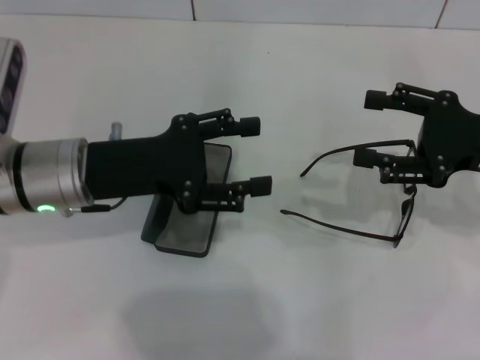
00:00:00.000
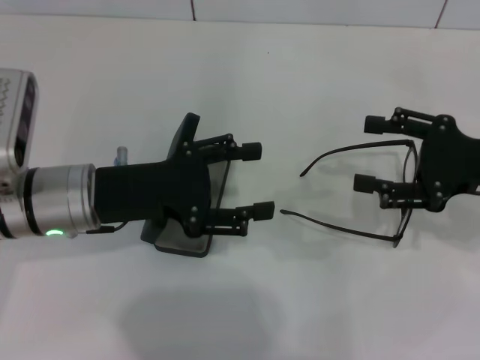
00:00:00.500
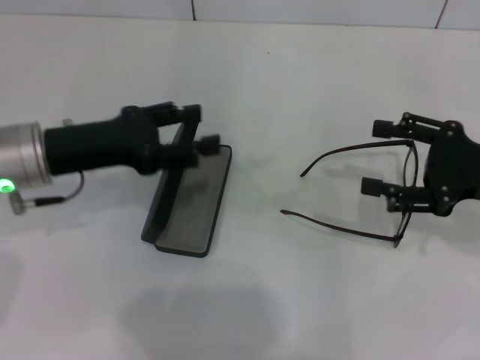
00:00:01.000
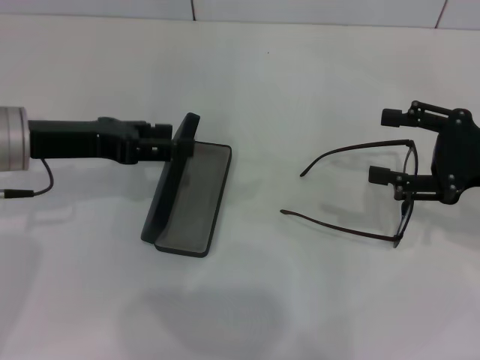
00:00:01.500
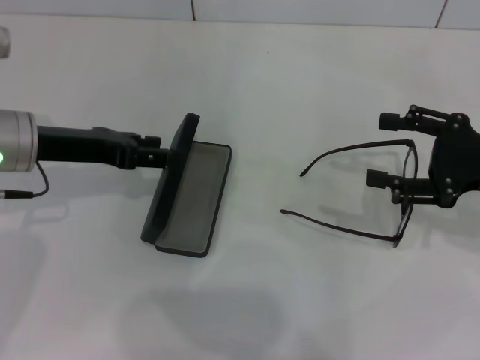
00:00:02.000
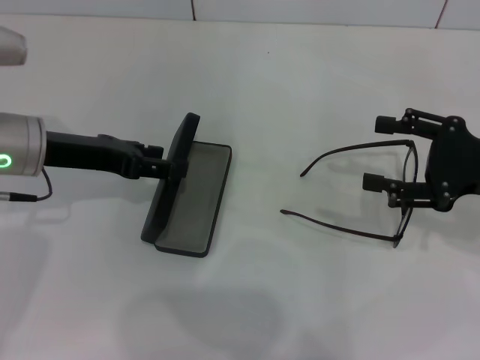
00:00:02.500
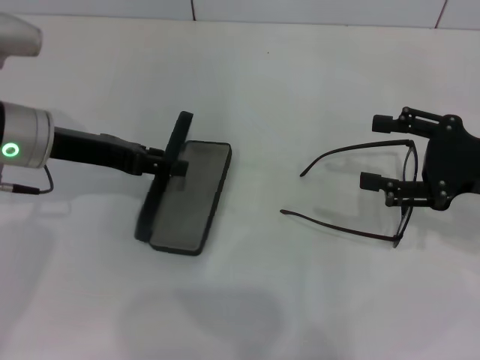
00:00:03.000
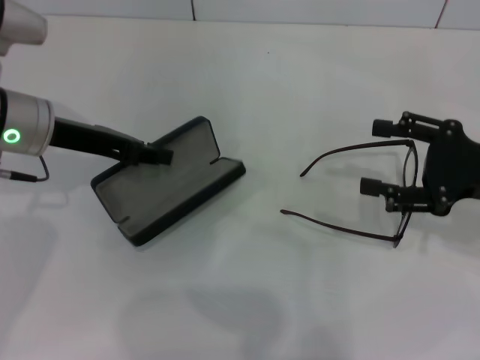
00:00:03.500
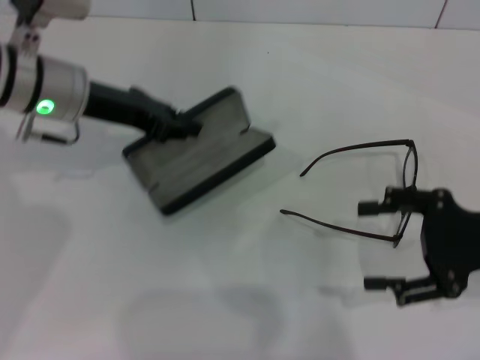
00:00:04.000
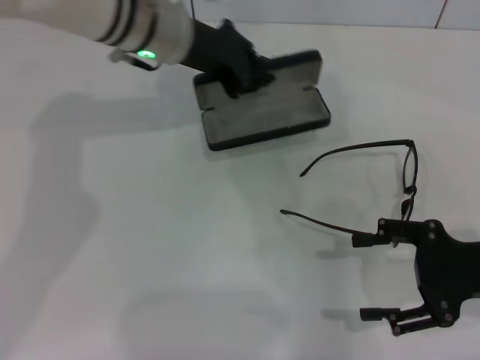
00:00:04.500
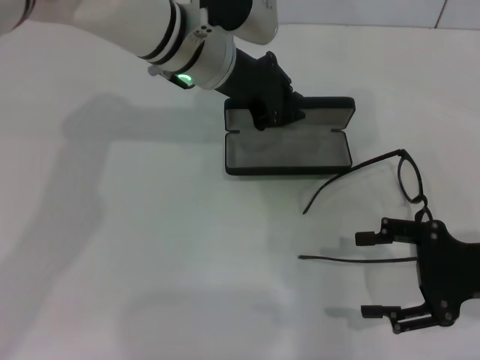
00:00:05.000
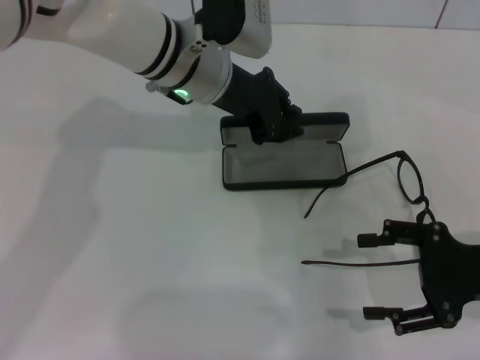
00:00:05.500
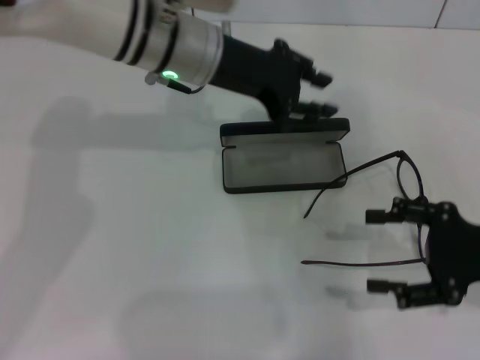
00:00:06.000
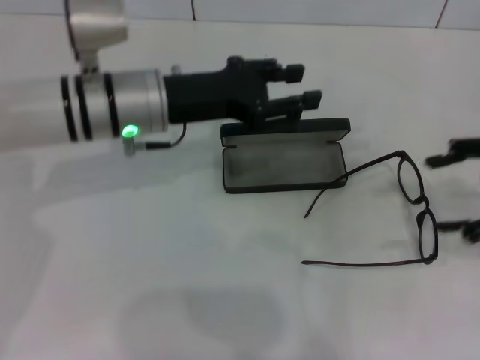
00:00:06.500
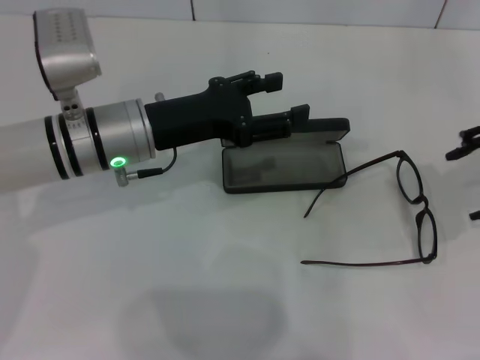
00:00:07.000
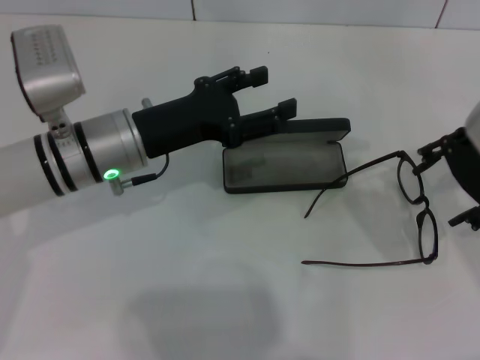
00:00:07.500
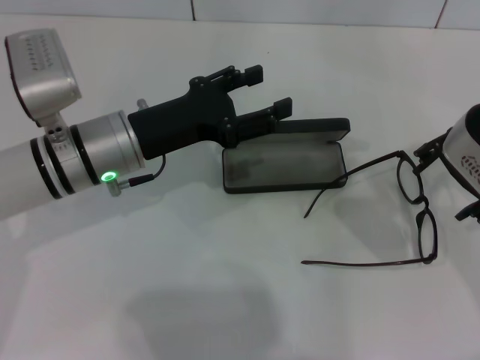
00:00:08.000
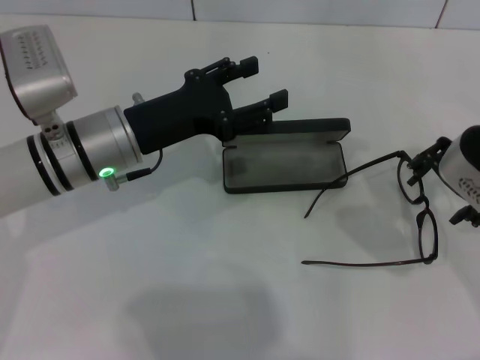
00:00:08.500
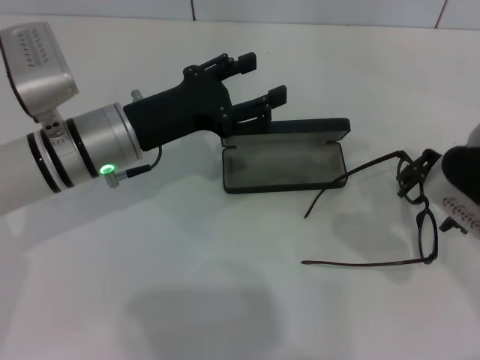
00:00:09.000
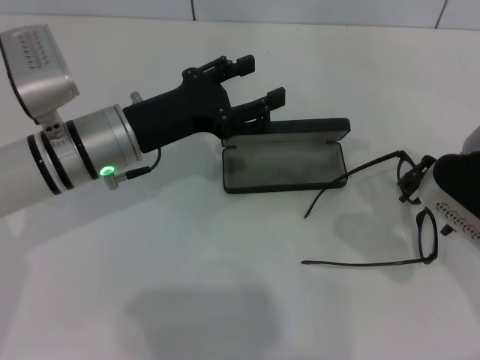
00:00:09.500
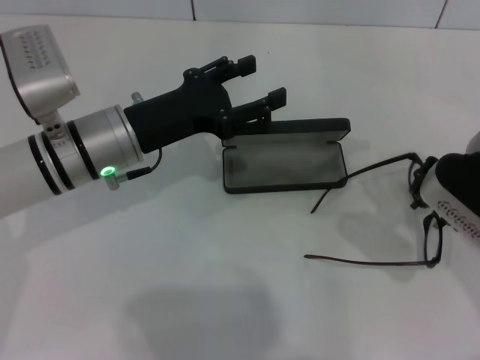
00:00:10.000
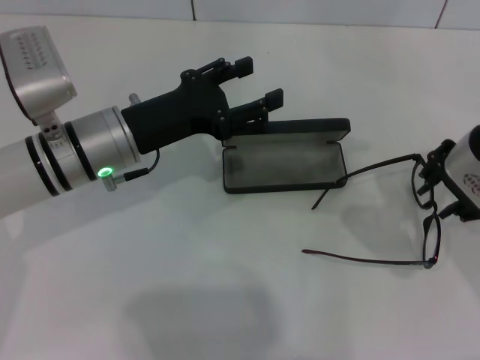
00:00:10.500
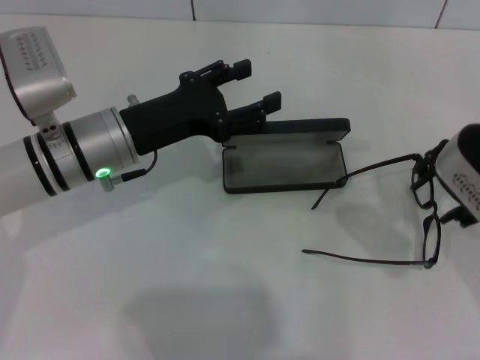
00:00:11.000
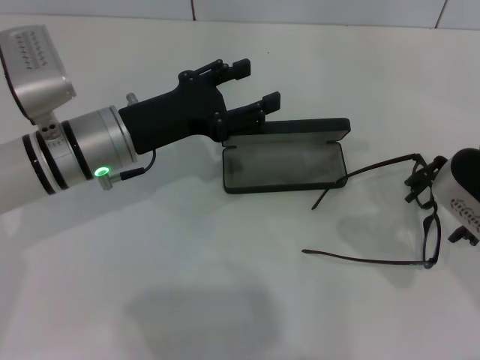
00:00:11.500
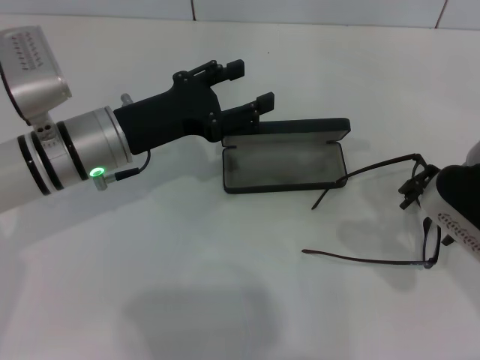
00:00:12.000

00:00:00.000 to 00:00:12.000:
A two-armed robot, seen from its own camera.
Step, 00:00:00.000 to 00:00:03.000: Grab the glasses case with your left hand.
Step, 00:00:04.000 to 00:00:05.500: Place the glasses case in the center of the table with your left hand.
00:00:00.000 to 00:00:02.000: The left gripper travels to the left by some 5 cm.
00:00:02.000 to 00:00:04.000: The left gripper is displaced forward by some 5 cm, and closes up.
00:00:04.000 to 00:00:06.000: The left gripper travels to the right by some 10 cm, and opens up.
00:00:06.000 to 00:00:08.000: The right gripper shifts some 15 cm upward, to the left and forward; the left gripper heads backward, downward and to the left, covering about 15 cm, and opens up.
00:00:08.000 to 00:00:12.000: The grippers move only a little.

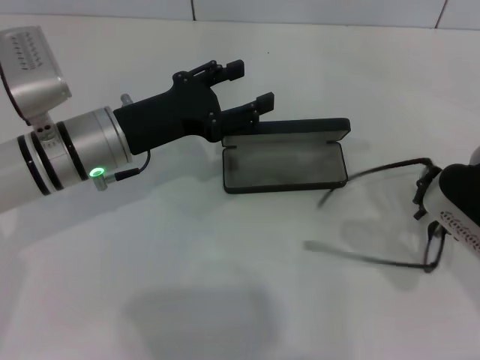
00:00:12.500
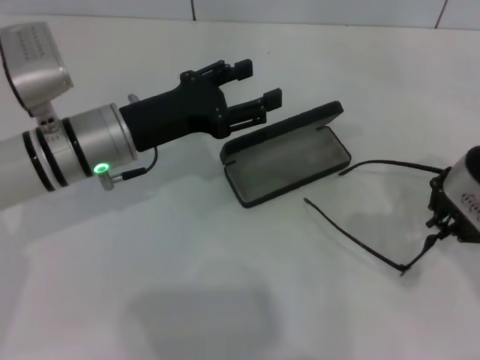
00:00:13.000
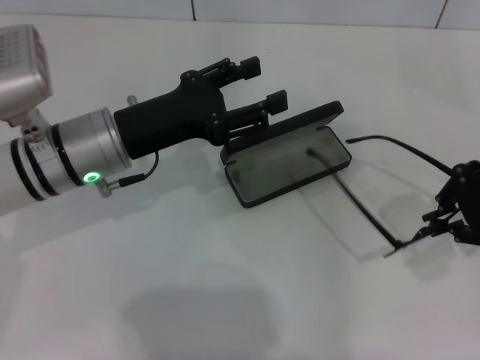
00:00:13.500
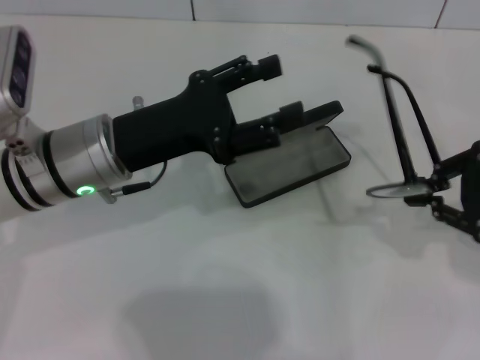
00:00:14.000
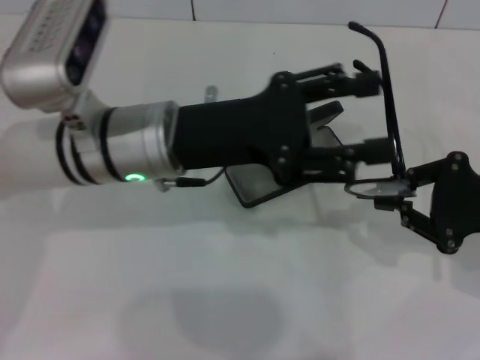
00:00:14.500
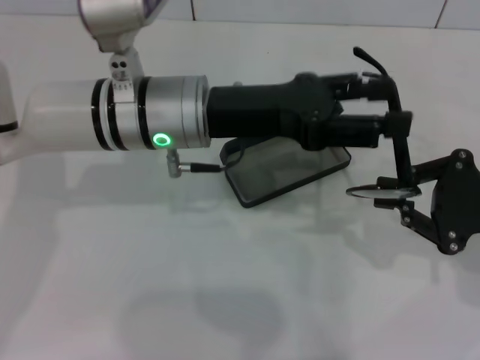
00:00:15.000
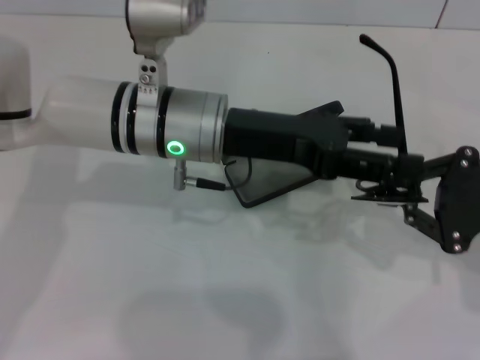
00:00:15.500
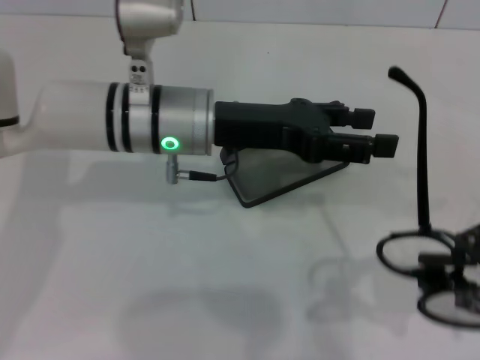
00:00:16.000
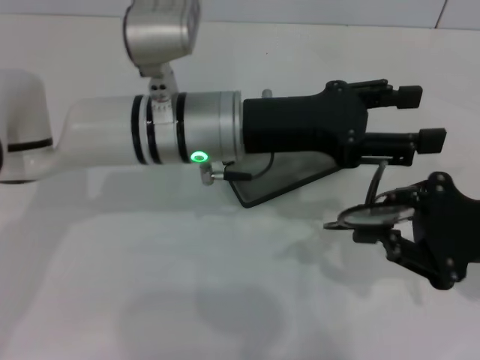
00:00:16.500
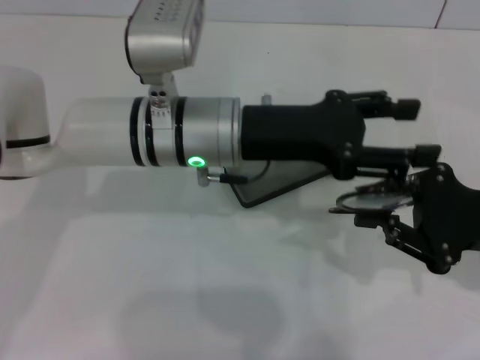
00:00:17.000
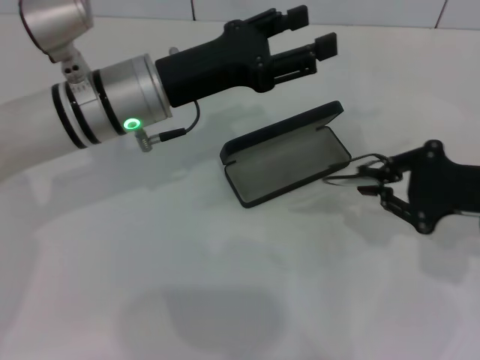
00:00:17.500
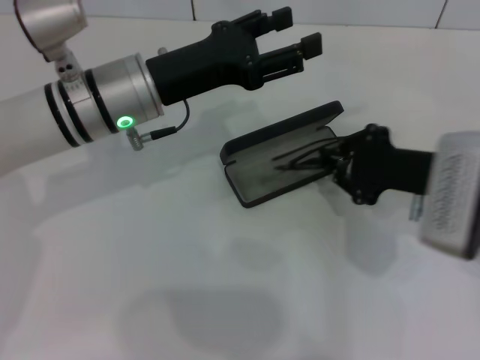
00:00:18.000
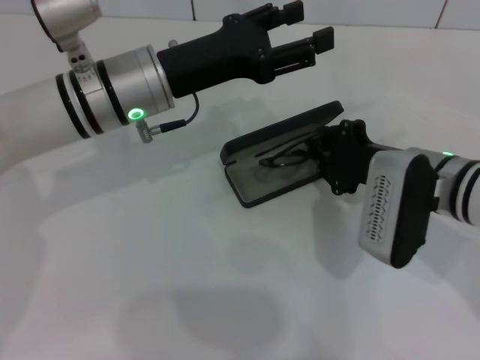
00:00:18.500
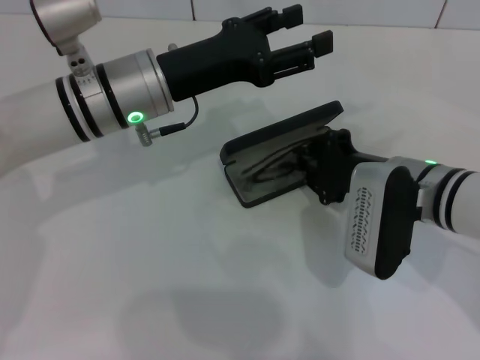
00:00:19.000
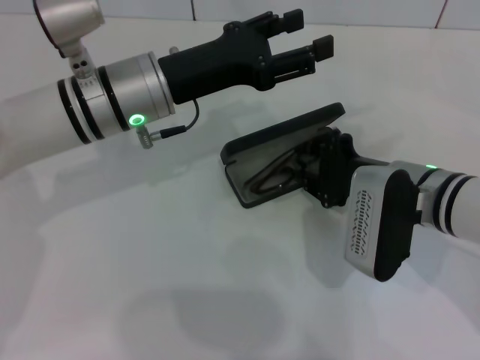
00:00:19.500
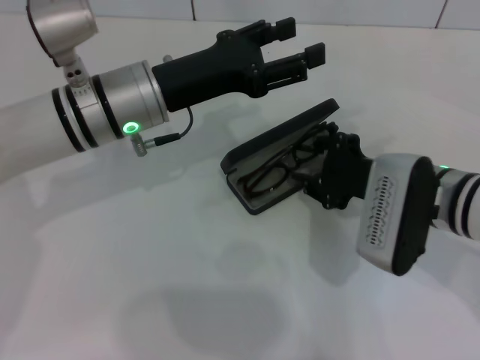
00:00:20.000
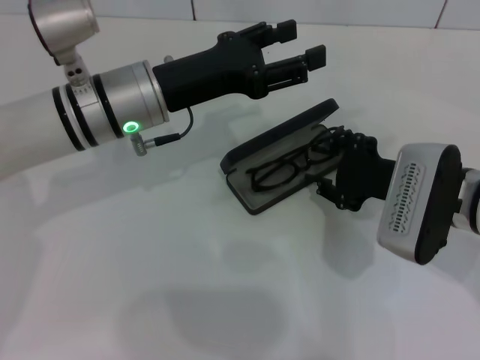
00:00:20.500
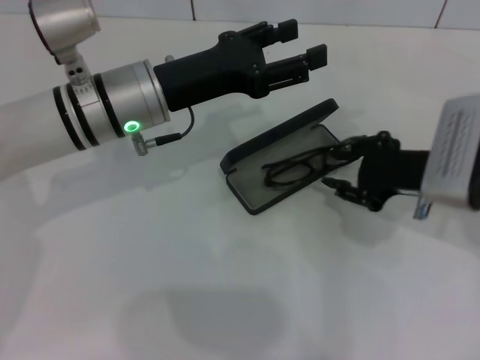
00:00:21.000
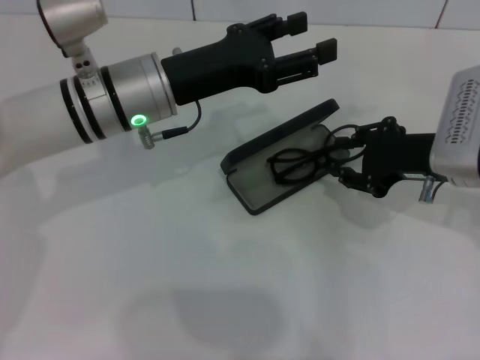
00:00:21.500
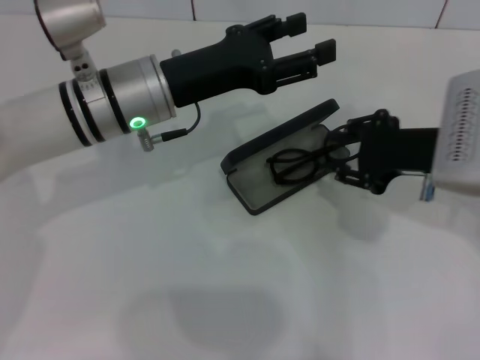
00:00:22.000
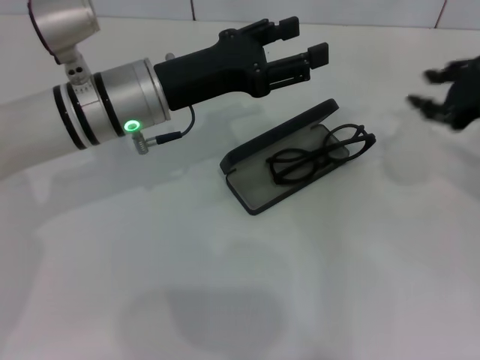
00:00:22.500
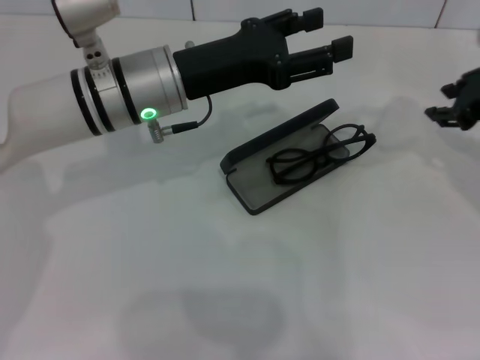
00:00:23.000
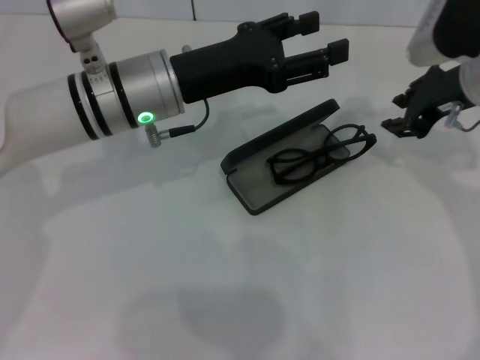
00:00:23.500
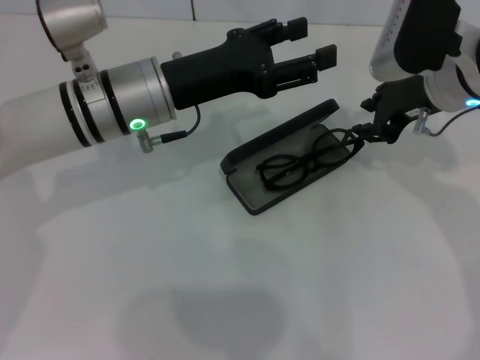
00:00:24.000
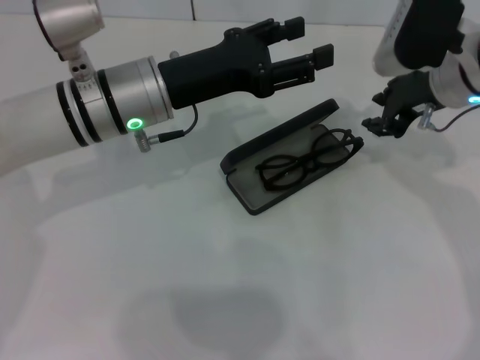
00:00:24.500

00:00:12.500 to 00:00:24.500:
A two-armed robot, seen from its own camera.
Step, 00:00:13.000 to 00:00:16.500: Fold the frame with your left hand.
00:00:12.500 to 00:00:14.500: The right gripper shifts roughly 10 cm to the right and downward, and closes up. Meanwhile the left gripper is displaced to the right and upward by some 10 cm.
00:00:14.500 to 00:00:16.500: The left gripper moves roughly 5 cm.
00:00:16.500 to 00:00:18.500: The right gripper travels to the left and forward by roughly 10 cm; the left gripper heads to the left, covering roughly 5 cm.
00:00:18.500 to 00:00:20.500: The right gripper opens up.
00:00:20.500 to 00:00:22.500: The right gripper goes roughly 15 cm to the right and upward.
00:00:22.500 to 00:00:24.500: The right gripper travels to the left and forward by roughly 10 cm.

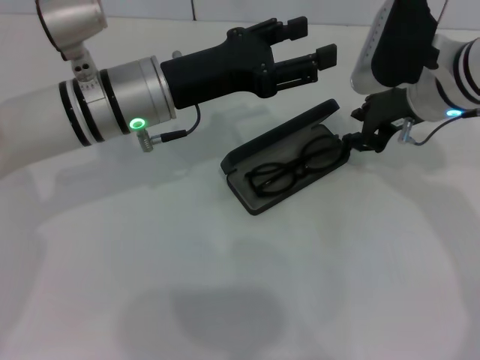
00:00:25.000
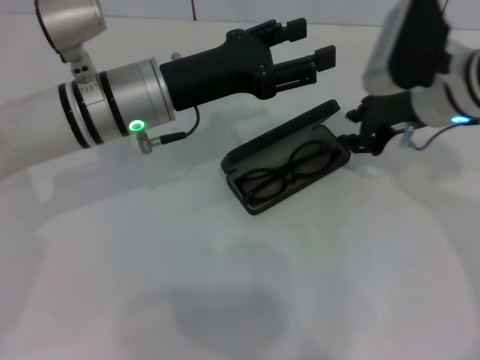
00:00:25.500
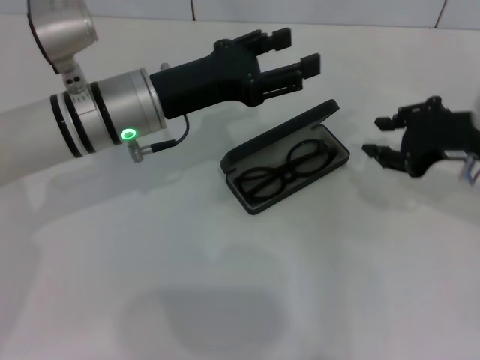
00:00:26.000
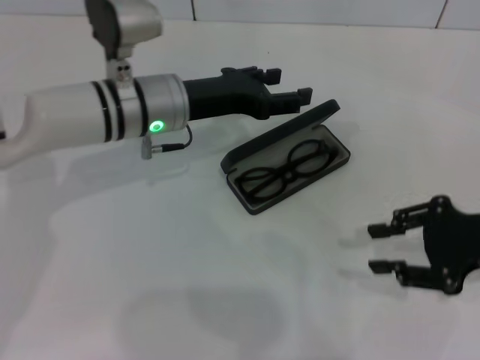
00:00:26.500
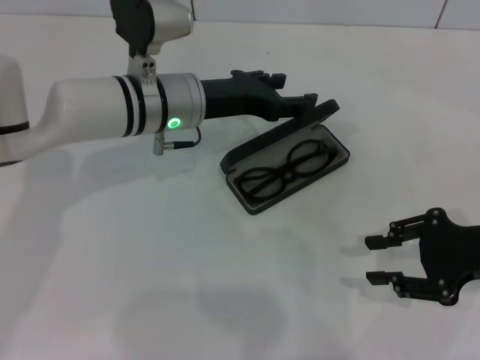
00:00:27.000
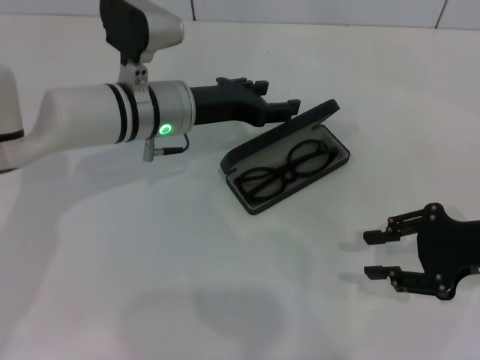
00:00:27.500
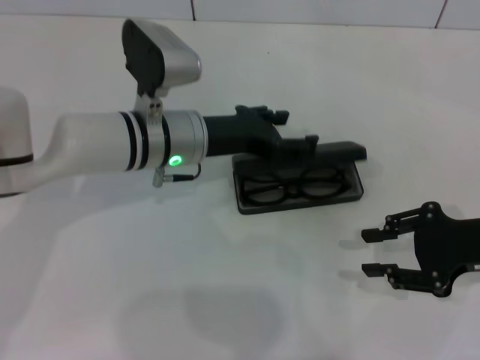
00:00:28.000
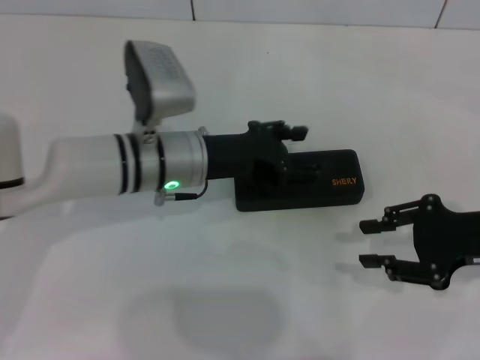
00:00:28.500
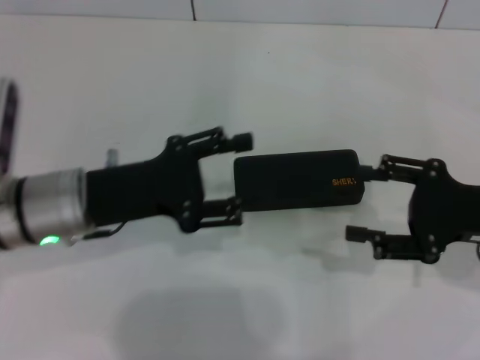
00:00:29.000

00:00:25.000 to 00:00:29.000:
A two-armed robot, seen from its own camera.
Step, 00:00:25.500 to 00:00:28.000: Close the glasses case with your left hand.
00:00:25.000 to 00:00:27.000: The left gripper moves about 5 cm; the right gripper moves backward and to the right, some 20 cm.
00:00:27.000 to 00:00:29.000: The left gripper goes approximately 15 cm backward and to the left.
